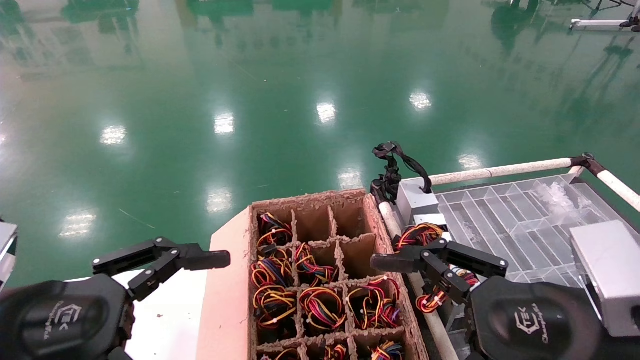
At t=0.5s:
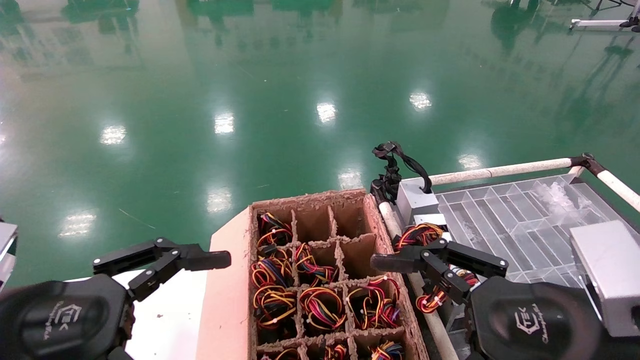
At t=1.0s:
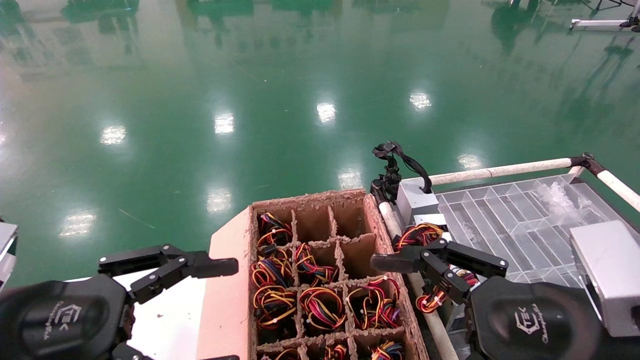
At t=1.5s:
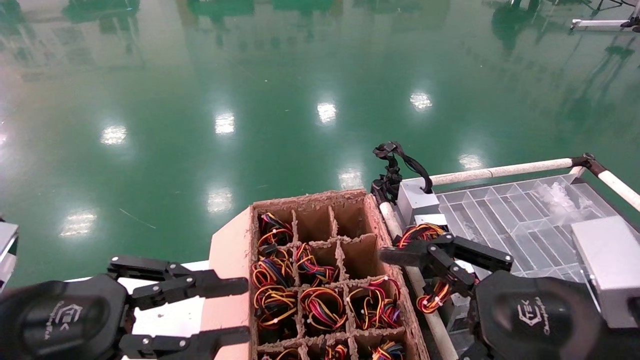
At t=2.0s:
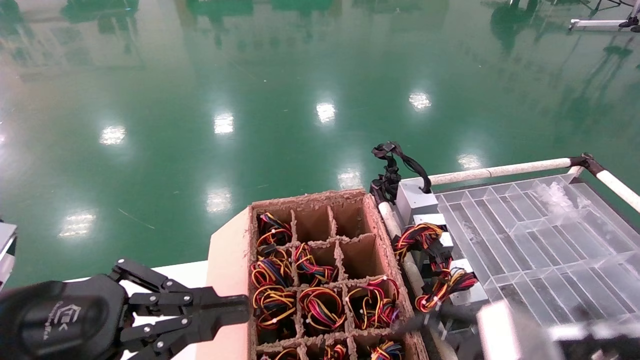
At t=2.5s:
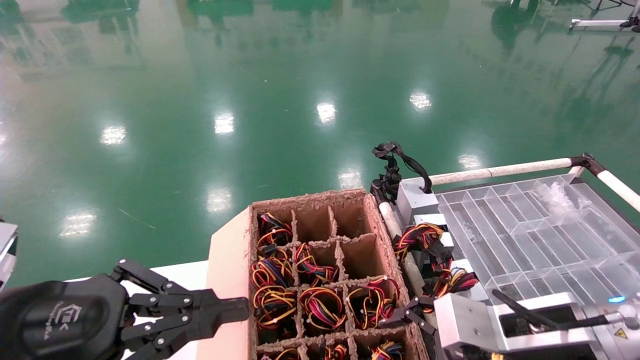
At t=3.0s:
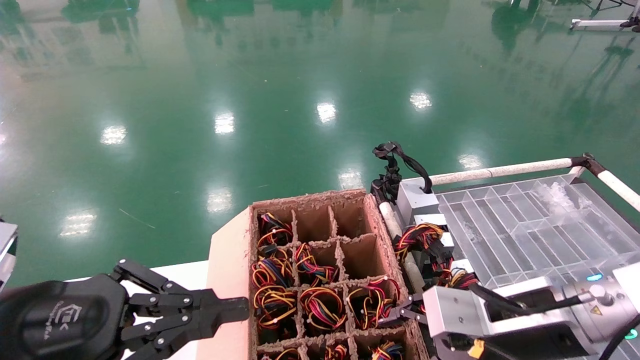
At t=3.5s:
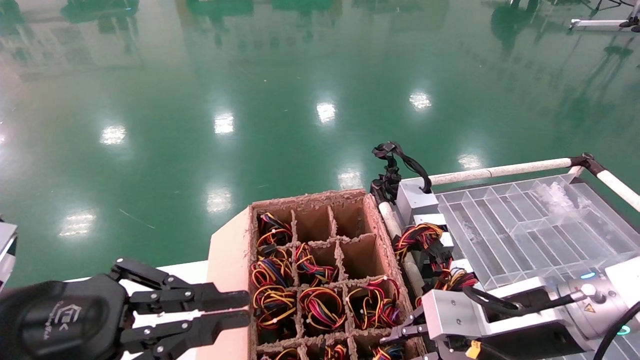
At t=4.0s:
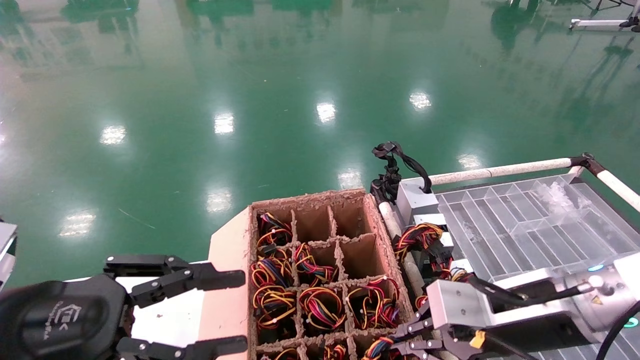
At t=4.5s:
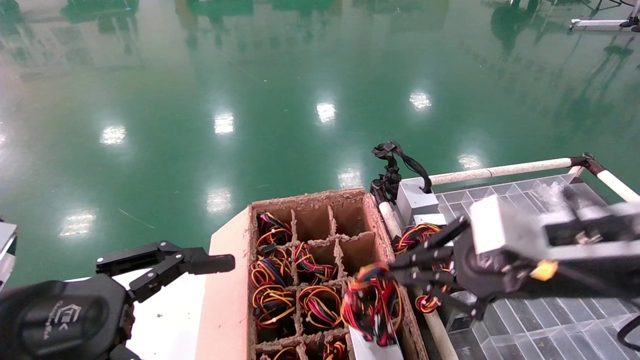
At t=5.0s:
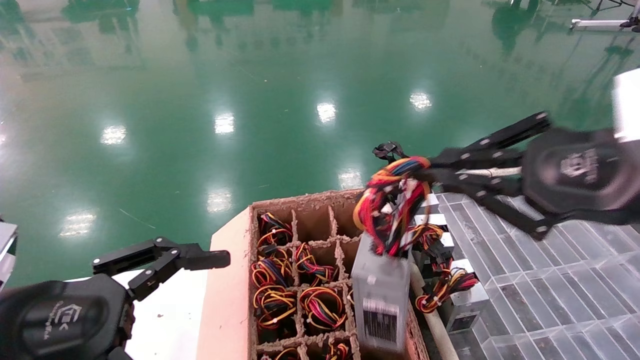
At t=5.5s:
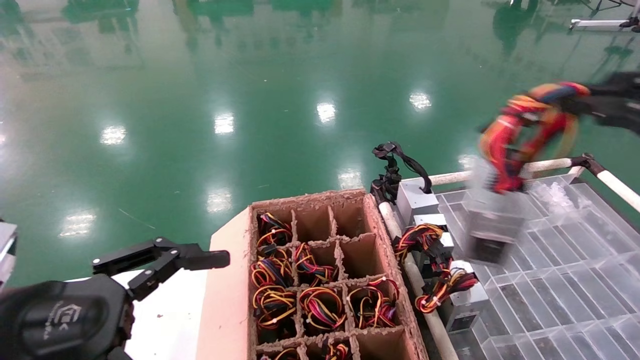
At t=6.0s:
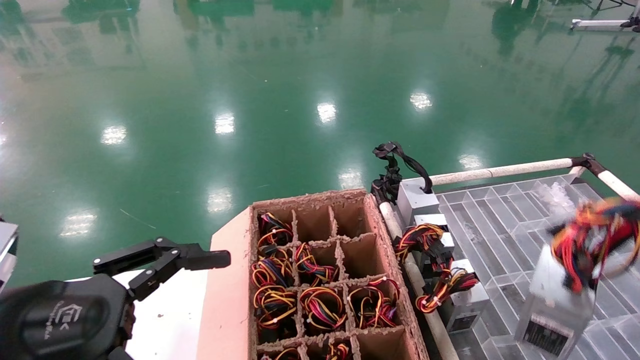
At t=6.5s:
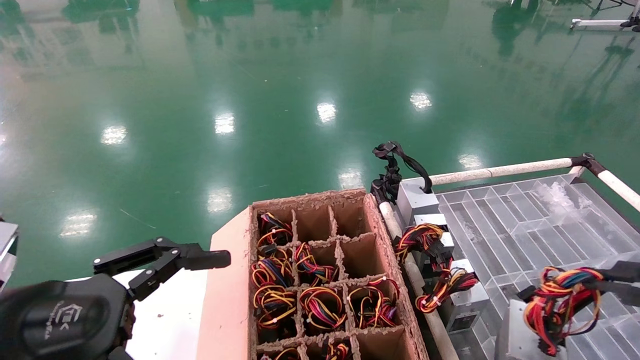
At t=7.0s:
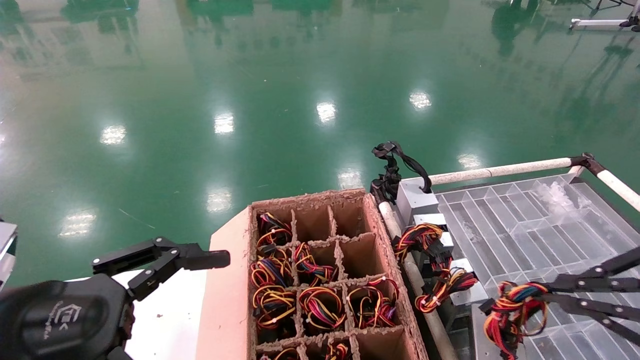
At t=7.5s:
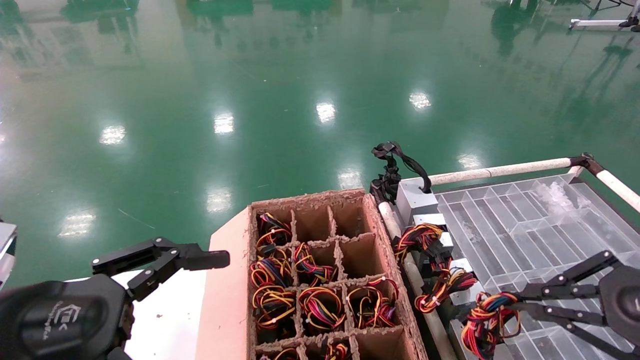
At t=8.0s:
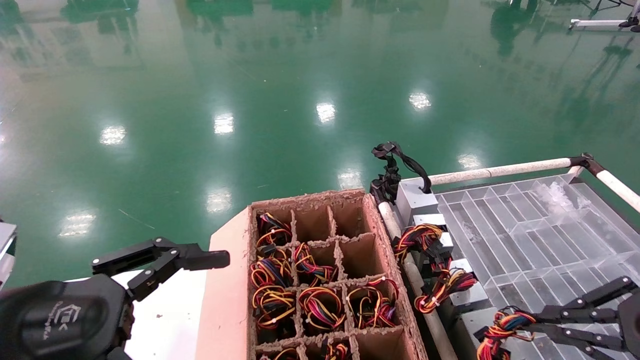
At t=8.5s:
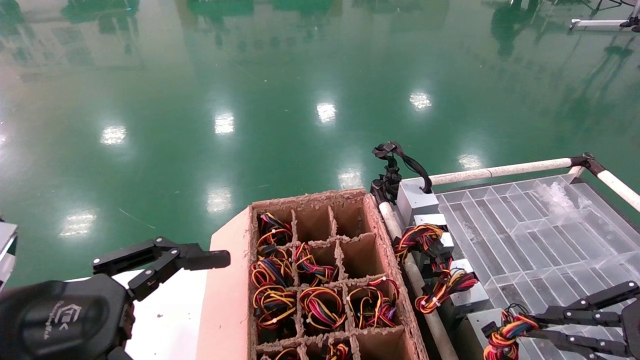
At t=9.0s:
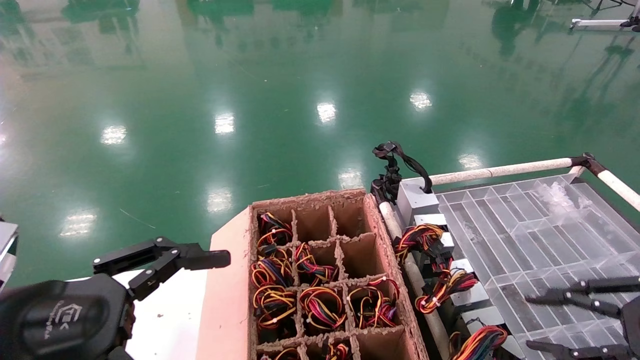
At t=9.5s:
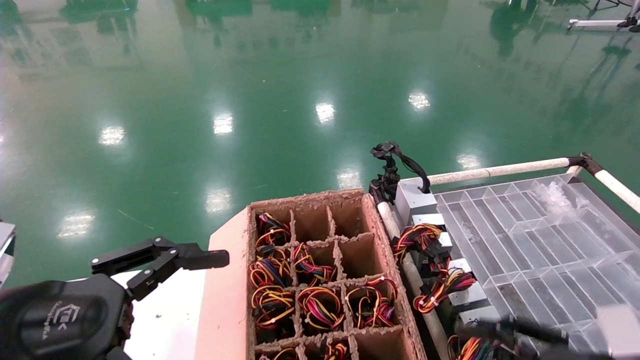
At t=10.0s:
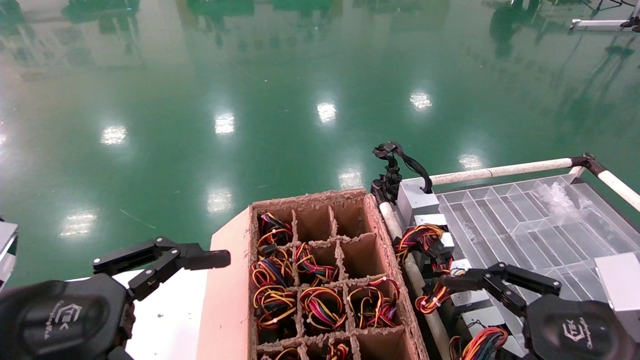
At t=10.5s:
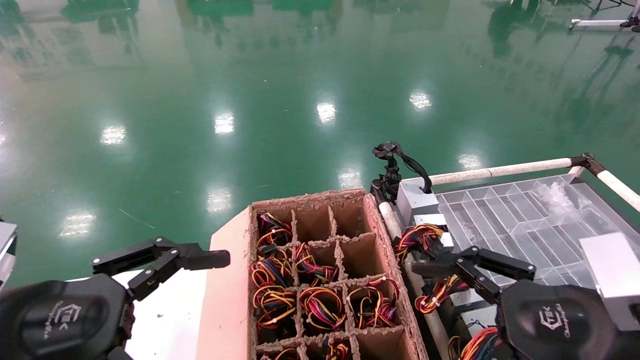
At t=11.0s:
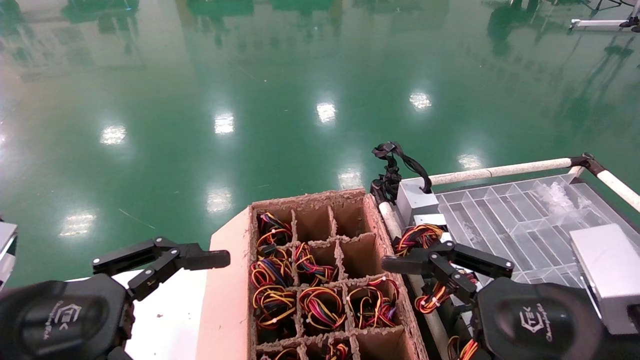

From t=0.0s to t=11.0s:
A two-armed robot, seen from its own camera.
Step, from t=2.5s to t=3.5s: Grab and lift the power supply from the large box.
Step, from t=4.0s to t=8.5s: Place the power supply on the operating table.
From t=0.0s to t=2.0s: The right gripper ends up approximately 5 cm from where it was; the left gripper closes.
From t=2.0s to t=3.5s: The right gripper shifts approximately 5 cm forward, and closes its fingers.
From t=3.5s to t=5.5s: The left gripper opens. Meanwhile the right gripper is displaced upward, backward and to the right by some 30 cm.
From t=5.5s to t=7.5s: The right gripper travels downward and forward by approximately 15 cm.
From t=7.5s to t=9.0s: The grippers move only a little.
From t=9.0s to t=11.0s: The right gripper is displaced to the left by about 15 cm, and opens up.
